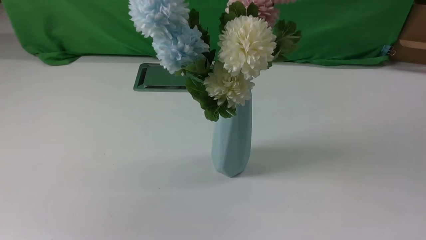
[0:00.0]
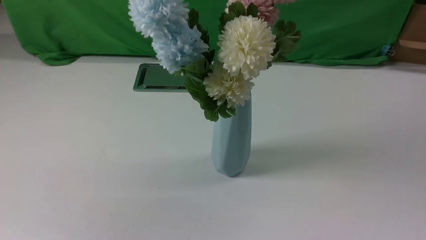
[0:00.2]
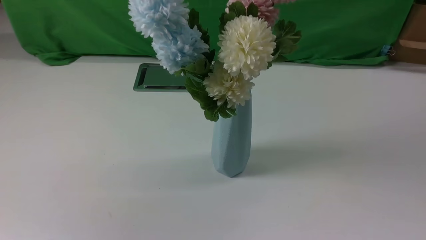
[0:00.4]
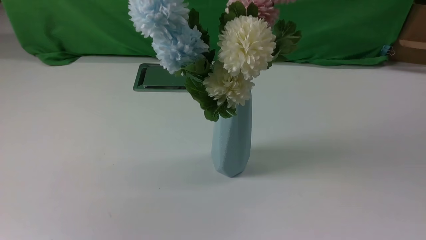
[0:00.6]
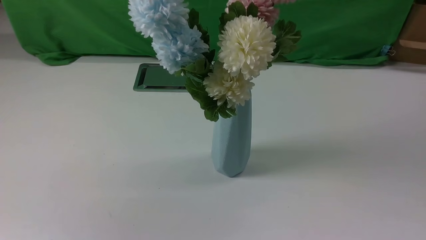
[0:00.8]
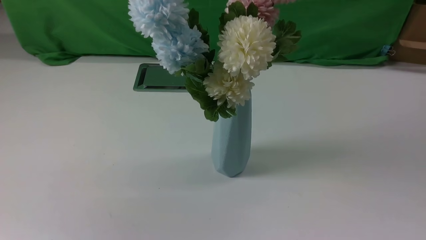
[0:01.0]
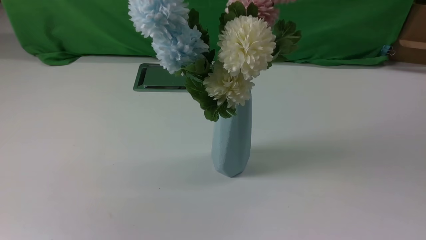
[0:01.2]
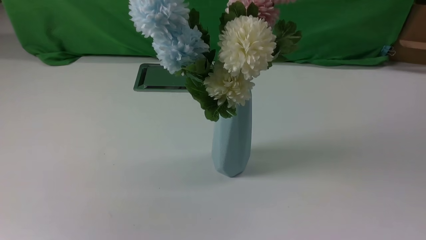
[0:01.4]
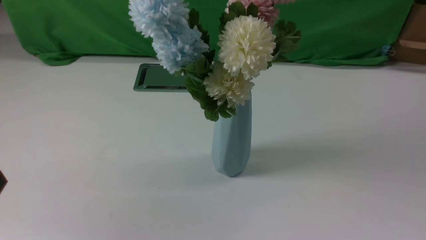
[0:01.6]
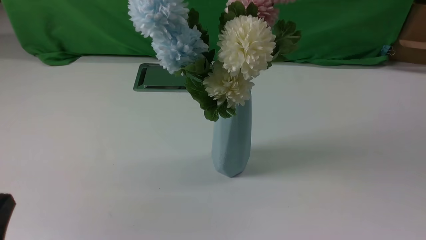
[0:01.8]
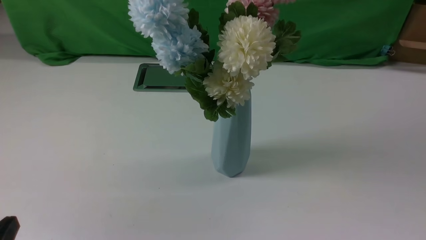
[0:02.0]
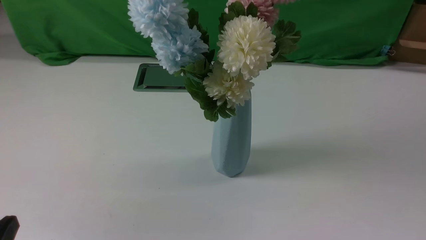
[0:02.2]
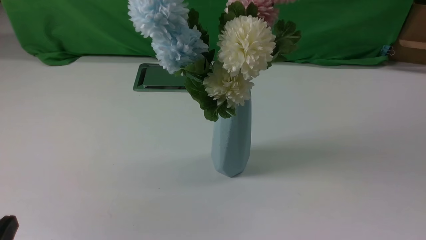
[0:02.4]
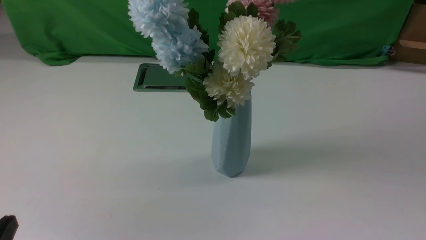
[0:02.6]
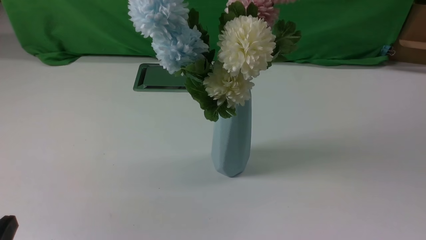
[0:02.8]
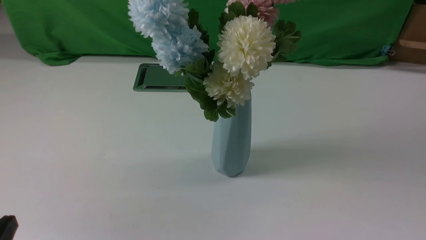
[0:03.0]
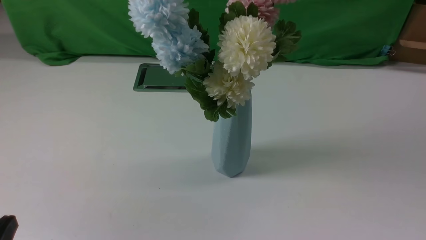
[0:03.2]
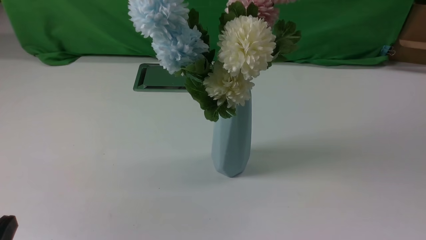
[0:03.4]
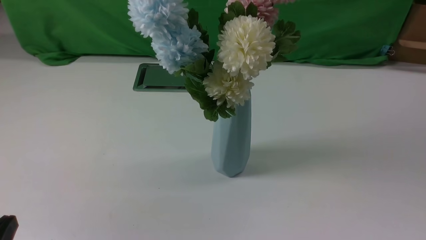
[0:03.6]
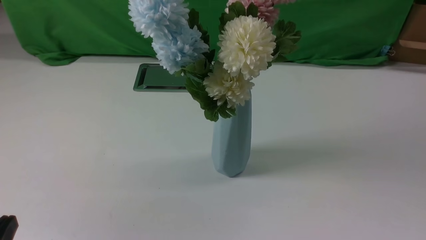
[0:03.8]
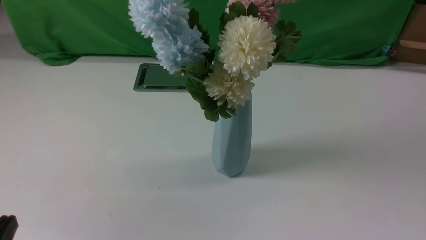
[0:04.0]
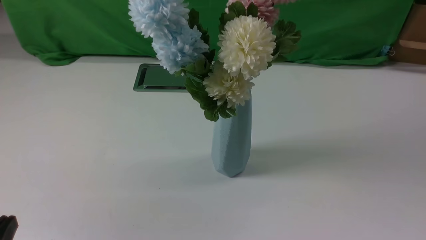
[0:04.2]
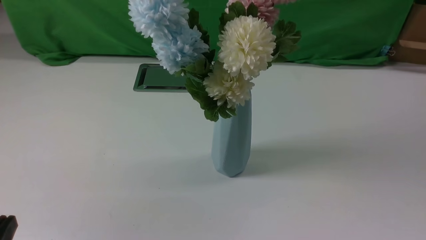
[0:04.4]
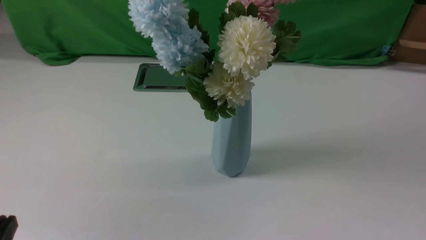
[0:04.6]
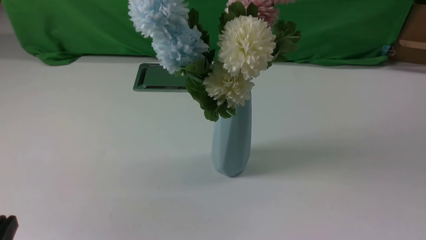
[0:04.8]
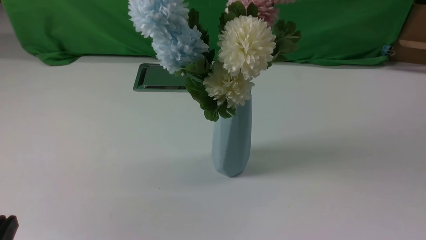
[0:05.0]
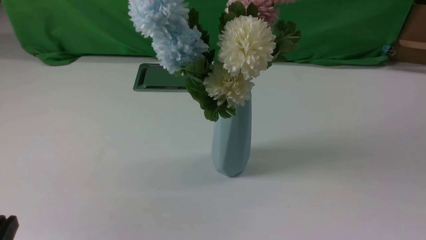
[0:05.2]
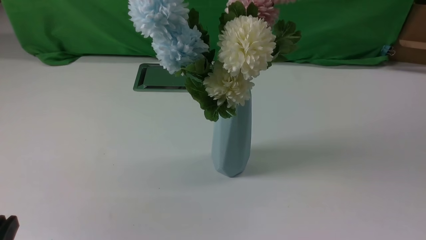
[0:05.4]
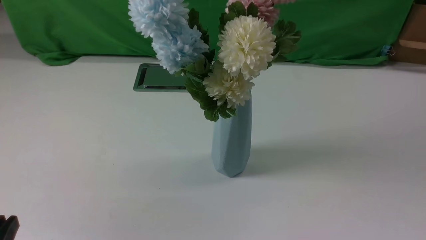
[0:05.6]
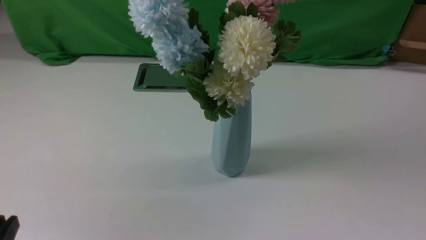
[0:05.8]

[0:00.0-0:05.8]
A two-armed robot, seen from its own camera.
Task of the whole recording: insert the flowers into the vase on the white table.
0:04.4 to 0:05.8: The two grippers keep their place.
